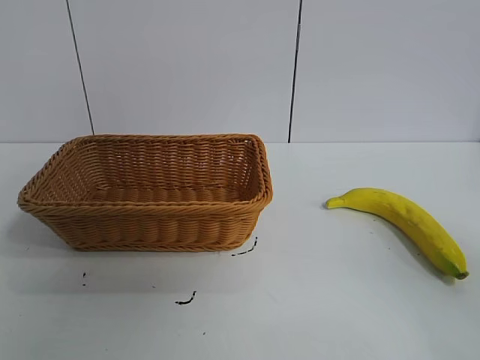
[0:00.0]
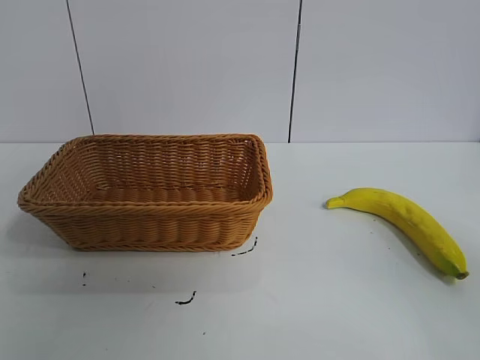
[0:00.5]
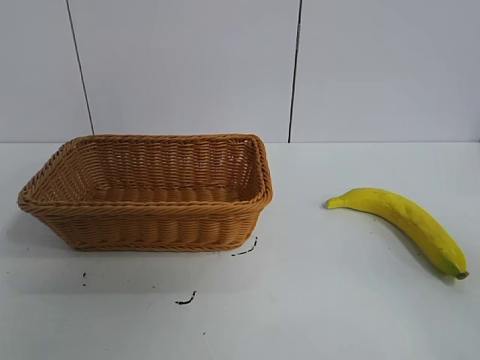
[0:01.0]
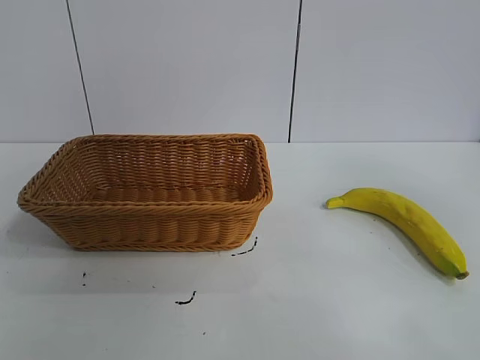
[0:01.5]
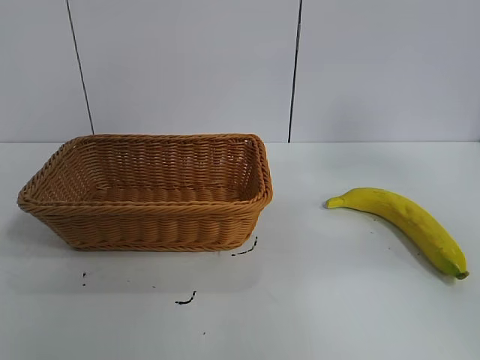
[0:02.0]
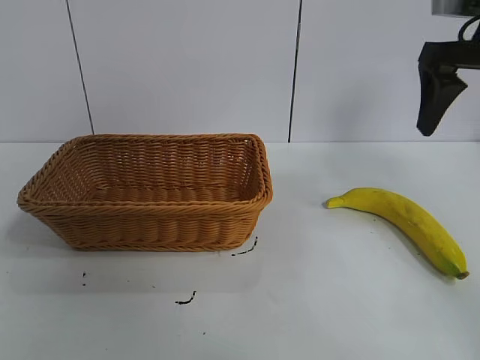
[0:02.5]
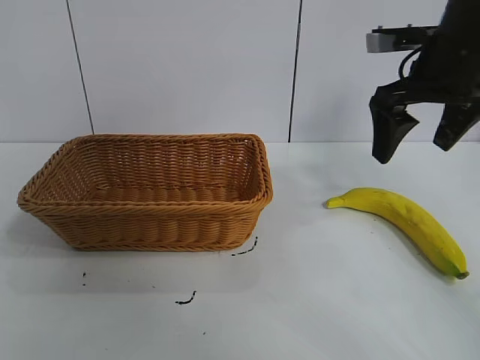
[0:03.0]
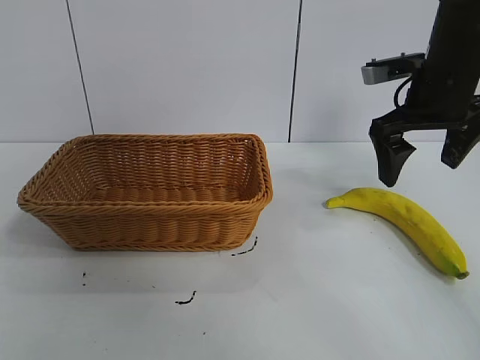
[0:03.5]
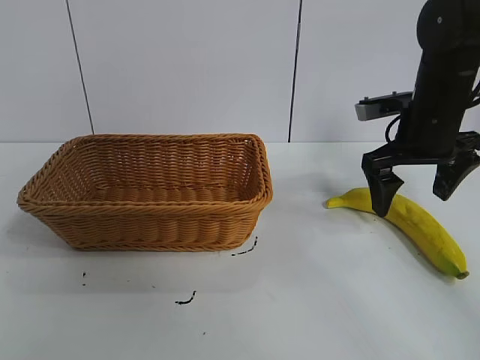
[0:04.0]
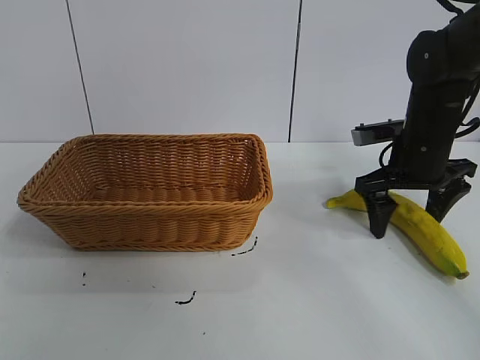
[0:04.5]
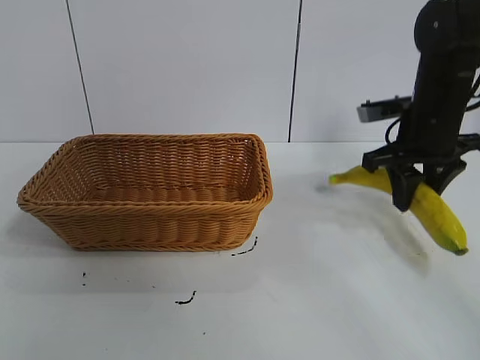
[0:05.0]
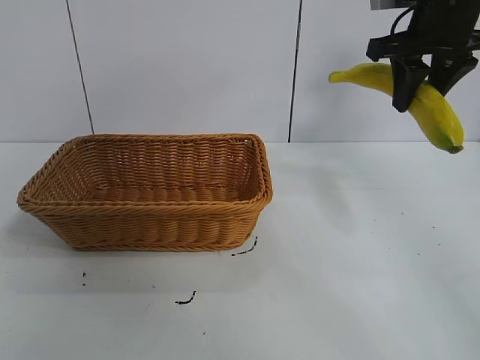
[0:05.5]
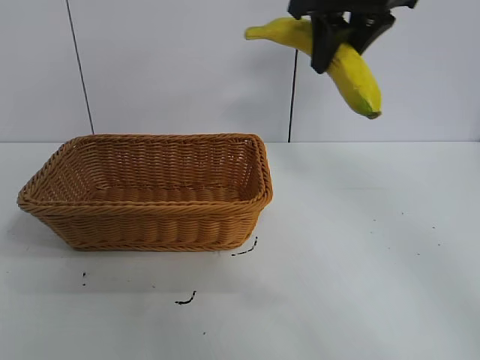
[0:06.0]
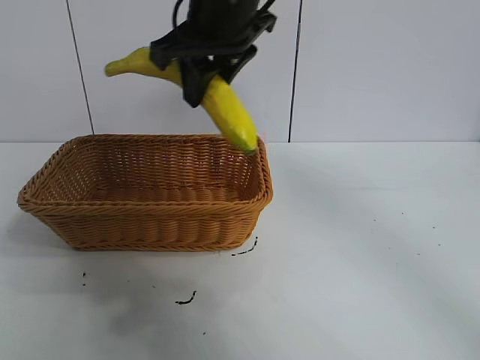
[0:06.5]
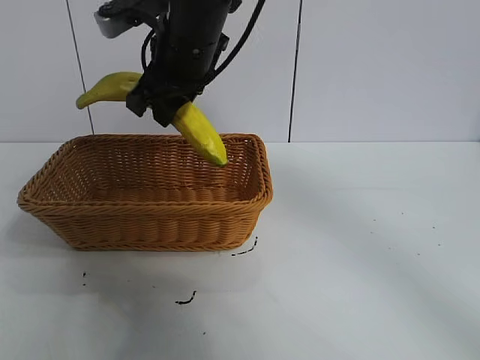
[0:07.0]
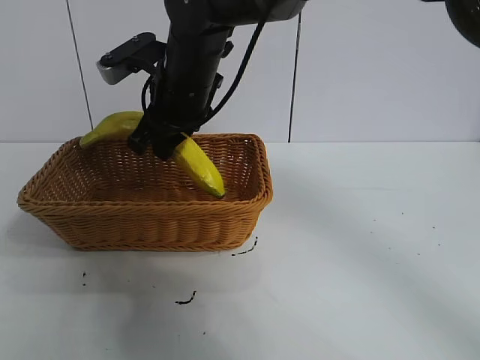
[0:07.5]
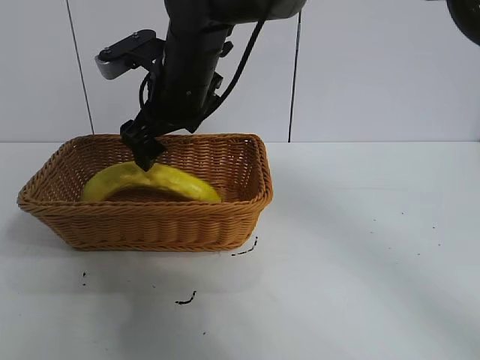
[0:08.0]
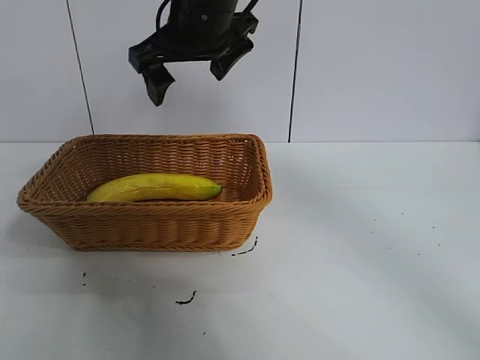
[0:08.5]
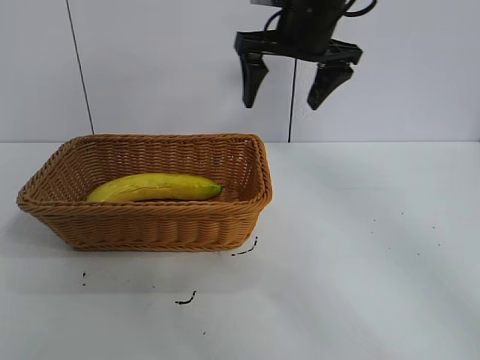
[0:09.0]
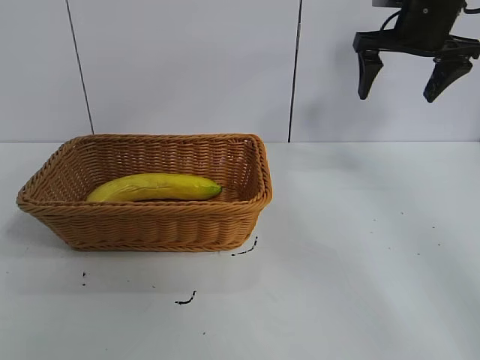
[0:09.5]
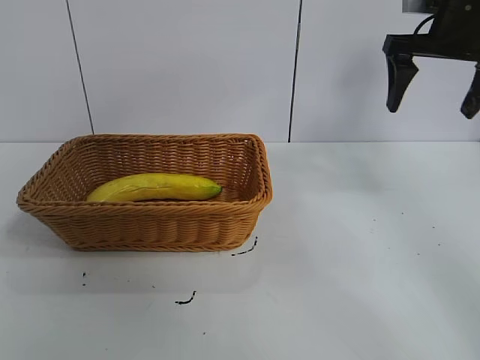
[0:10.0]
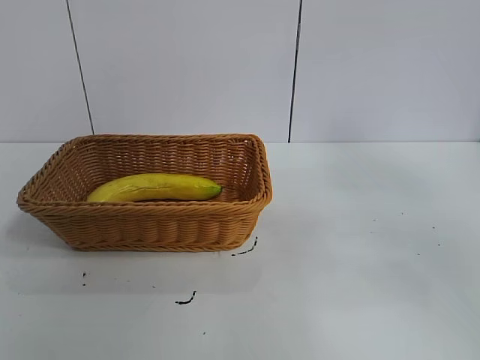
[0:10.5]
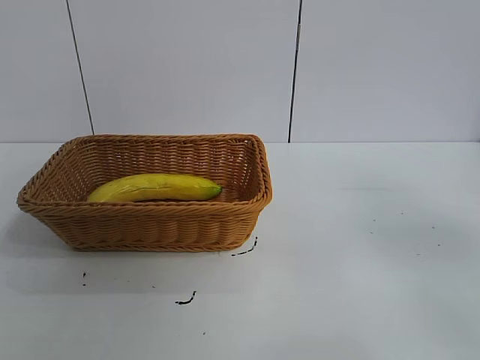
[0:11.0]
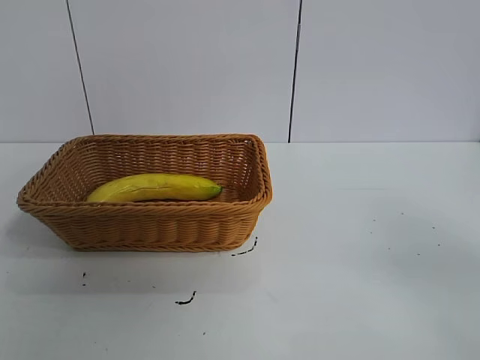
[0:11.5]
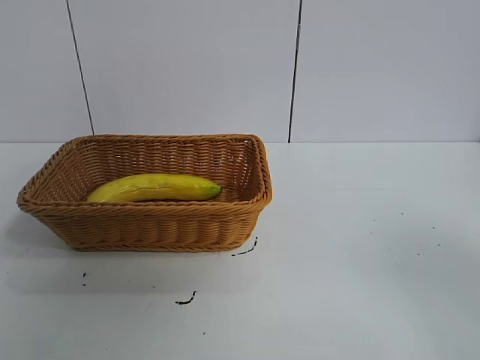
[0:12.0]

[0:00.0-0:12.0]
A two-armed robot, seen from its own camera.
Task of the whole recording: pick up the banana and put it into the basket.
Step, 0:01.0 to 0:04.5: Grasp the banana with right gripper.
Step, 0:05.5 to 0:08.0: Place the banana in the basket with right gripper.

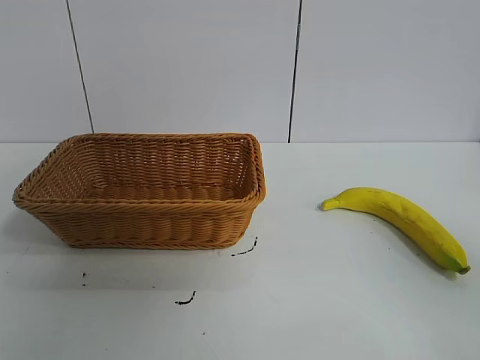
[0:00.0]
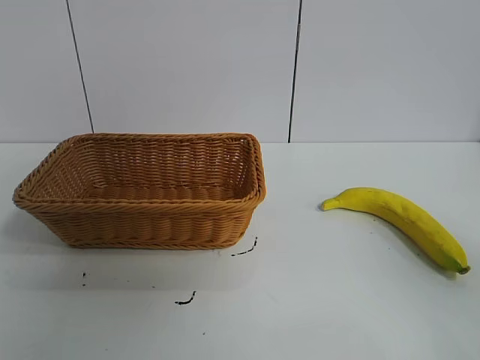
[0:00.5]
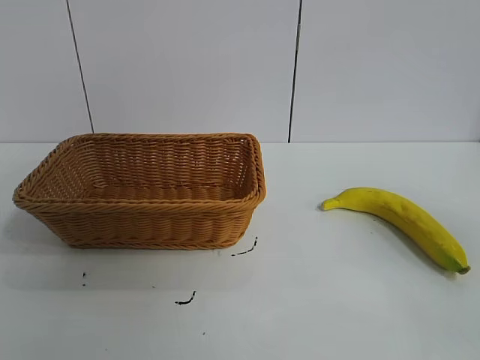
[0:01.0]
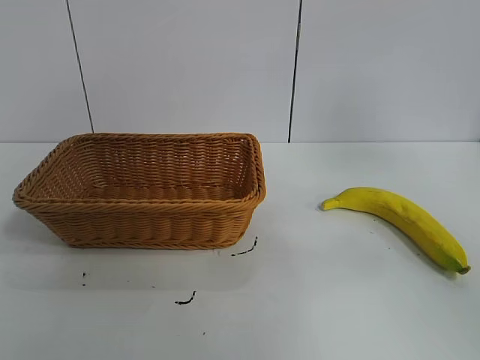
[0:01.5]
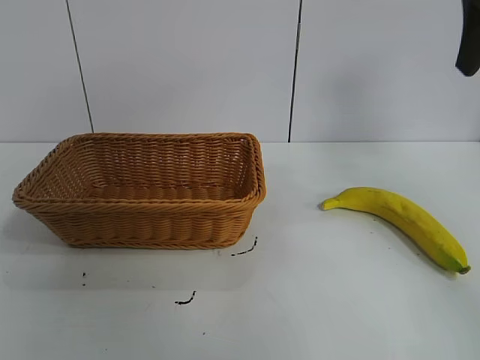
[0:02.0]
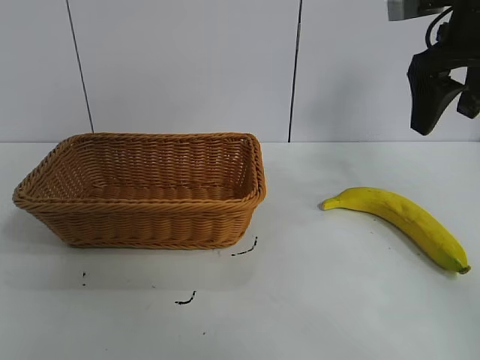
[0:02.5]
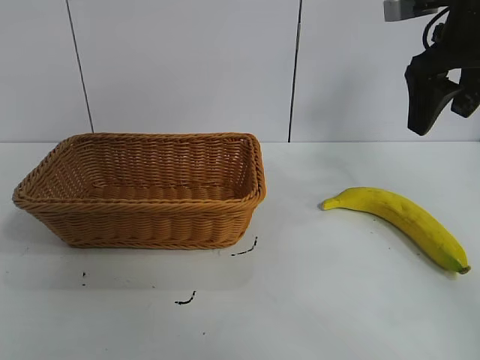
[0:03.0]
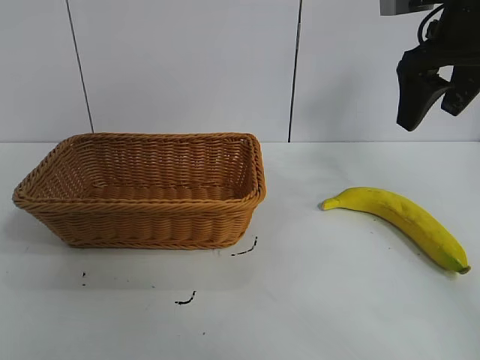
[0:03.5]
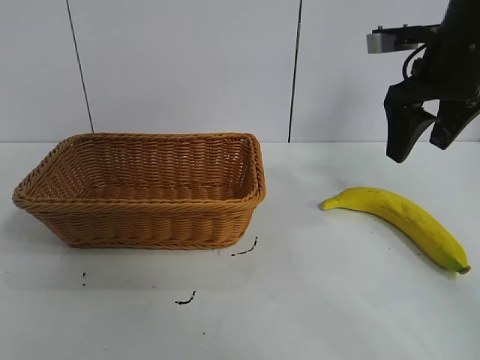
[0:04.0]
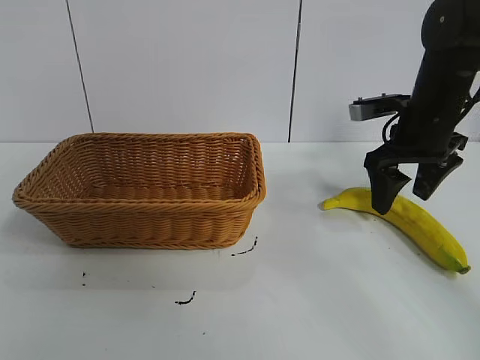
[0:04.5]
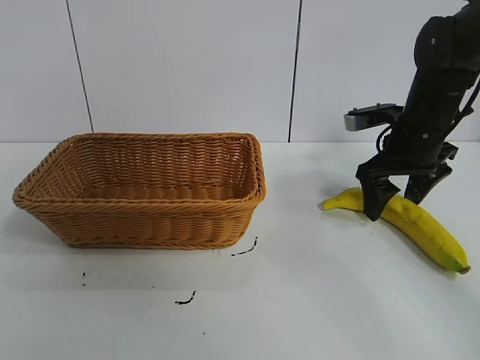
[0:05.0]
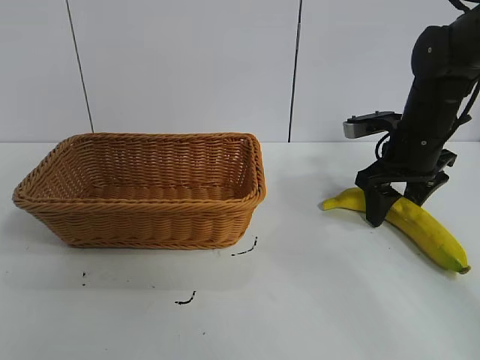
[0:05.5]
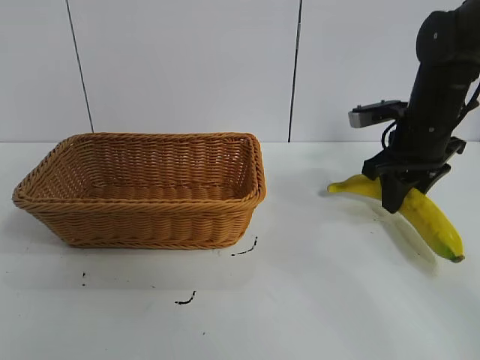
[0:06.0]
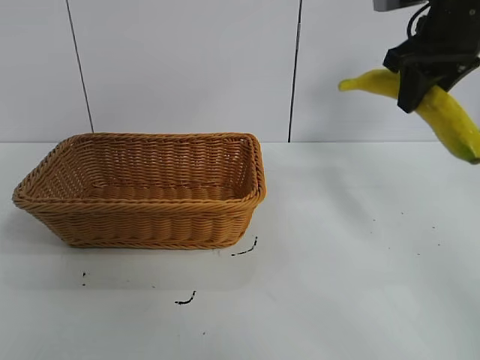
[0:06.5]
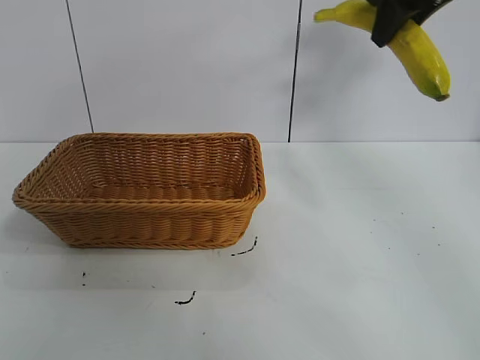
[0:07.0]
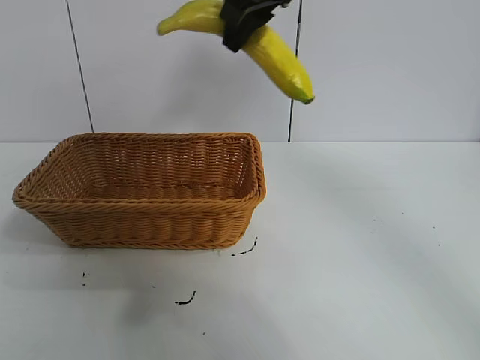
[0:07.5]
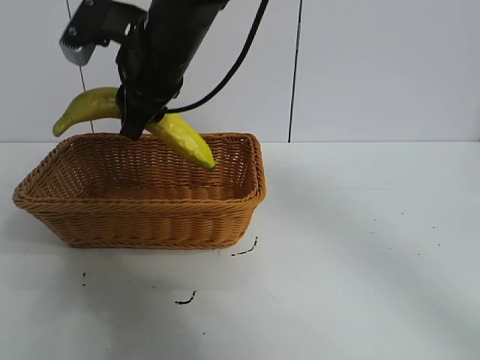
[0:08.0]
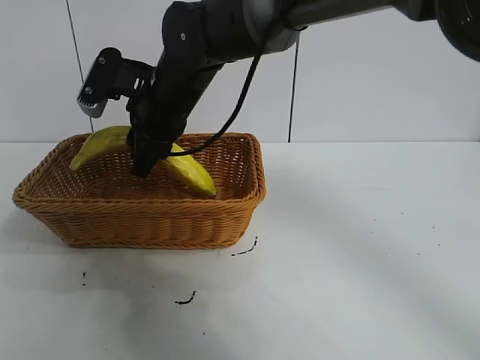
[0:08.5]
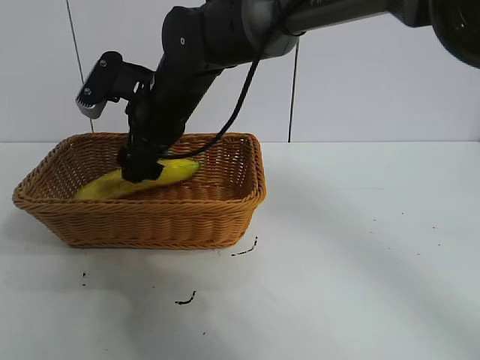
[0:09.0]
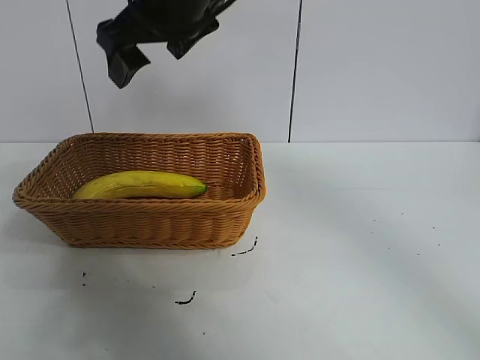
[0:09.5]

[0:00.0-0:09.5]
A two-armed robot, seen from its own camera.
Task of the whole recording: pick up the banana and put it into the basket.
Step, 0:01.0 to 0:05.5: Grasp the banana with right gripper.
Step, 0:06.0 to 0:09.0: Place the banana in the basket with right gripper.
